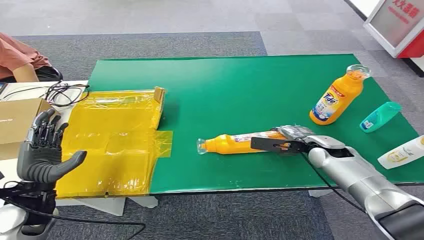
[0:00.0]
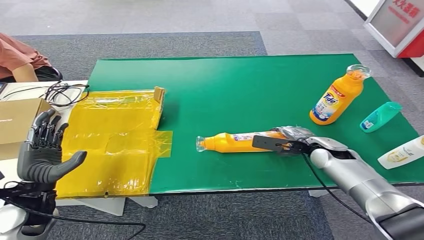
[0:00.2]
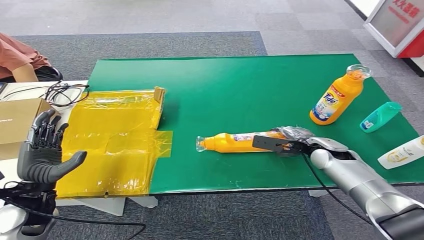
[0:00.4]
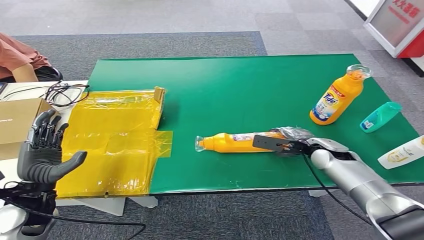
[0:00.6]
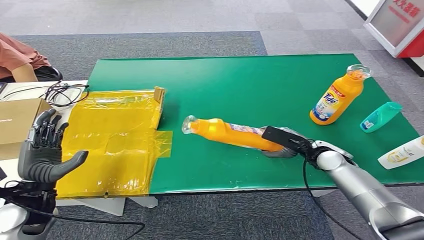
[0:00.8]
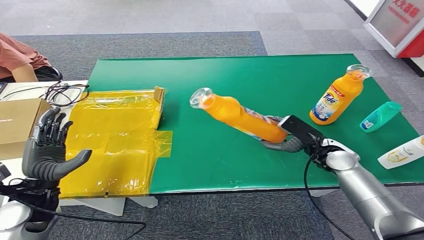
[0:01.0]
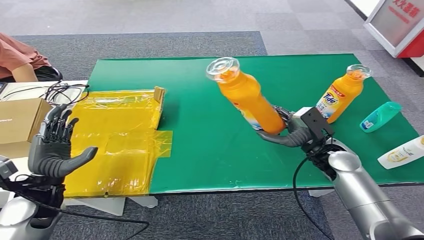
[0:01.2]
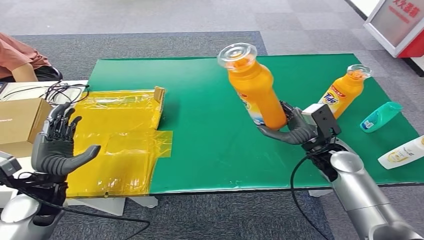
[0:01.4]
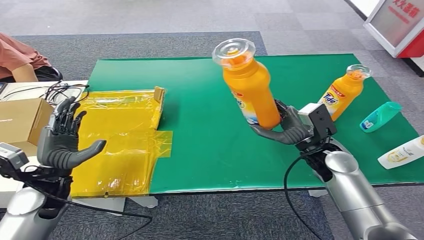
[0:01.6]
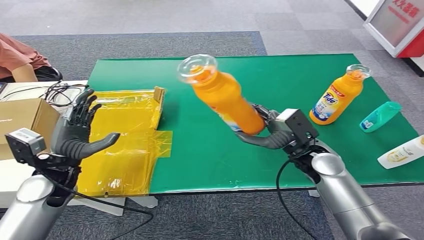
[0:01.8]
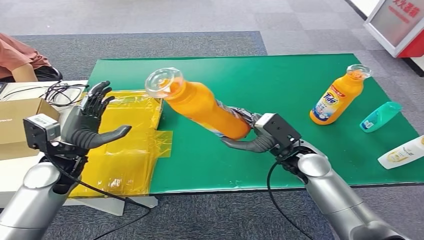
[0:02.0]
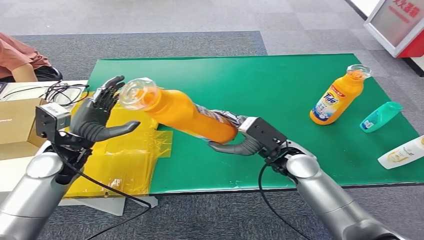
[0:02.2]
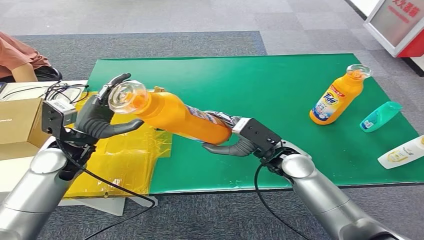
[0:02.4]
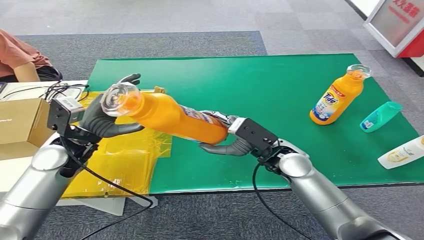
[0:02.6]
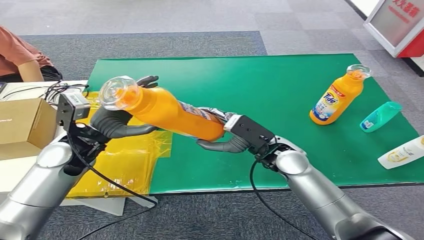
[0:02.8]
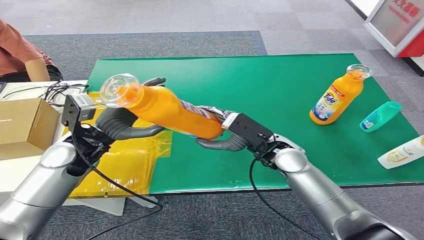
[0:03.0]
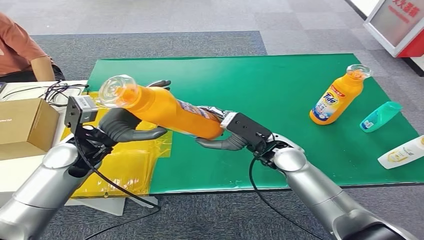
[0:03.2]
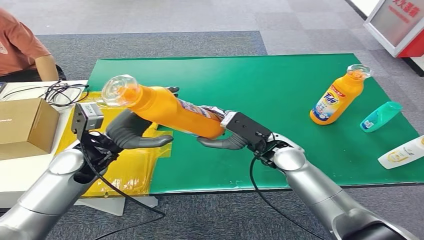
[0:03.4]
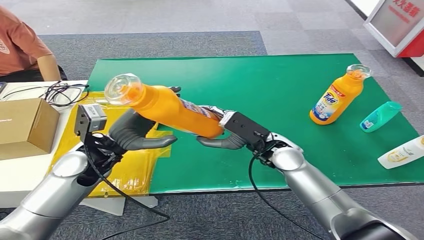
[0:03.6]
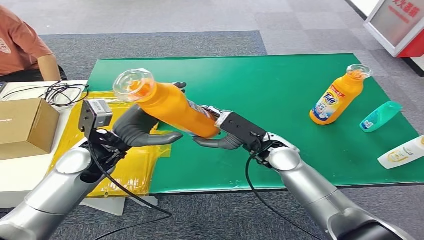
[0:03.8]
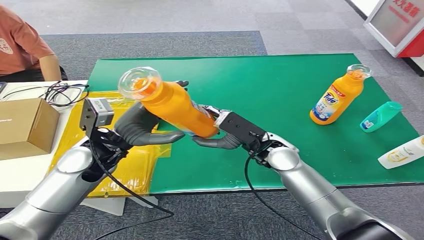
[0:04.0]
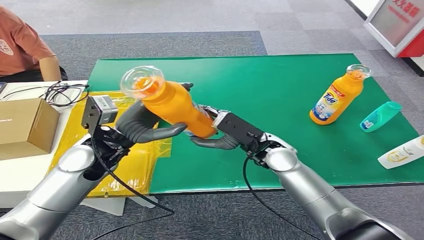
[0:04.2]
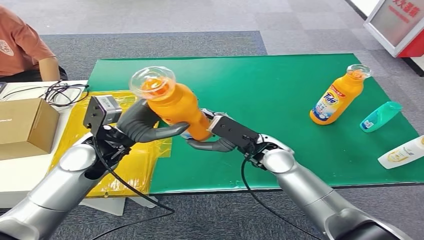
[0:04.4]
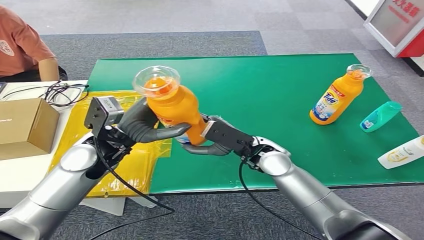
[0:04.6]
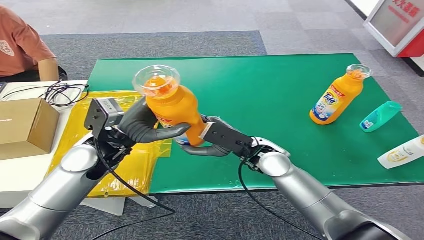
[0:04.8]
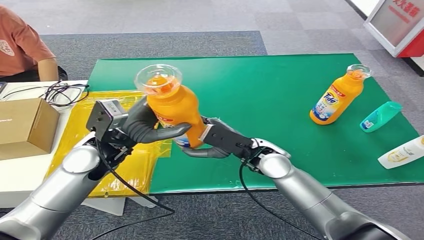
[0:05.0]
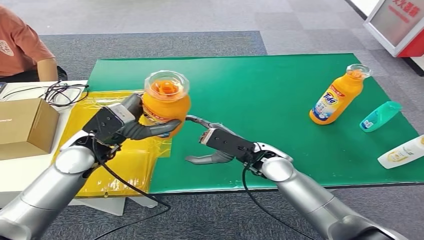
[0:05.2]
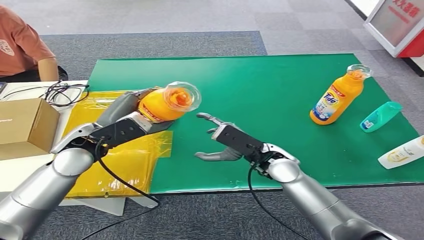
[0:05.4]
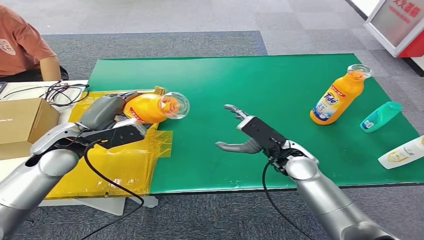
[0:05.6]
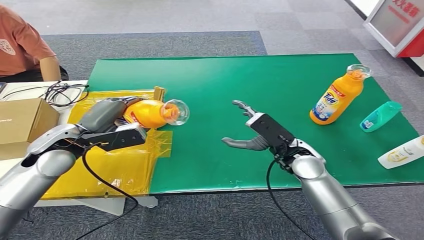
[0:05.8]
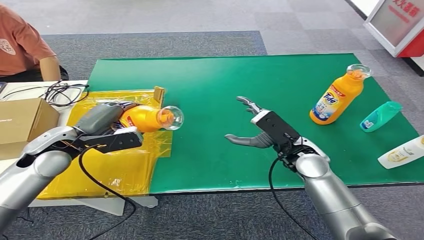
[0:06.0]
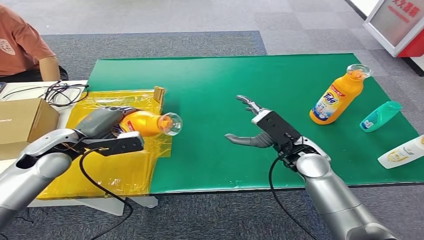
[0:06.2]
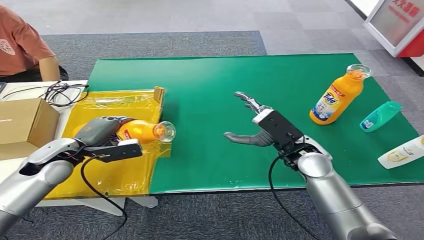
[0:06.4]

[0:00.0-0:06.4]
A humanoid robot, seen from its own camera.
Step, 0:00.0 to 0:01.4: Pick up the bottle from the table.
Step, 0:01.8 to 0:06.2: Turn the bottle to the front side.
